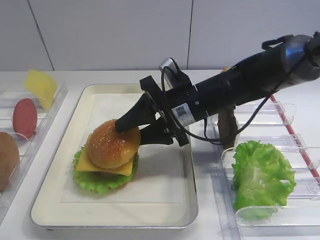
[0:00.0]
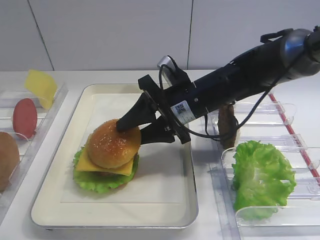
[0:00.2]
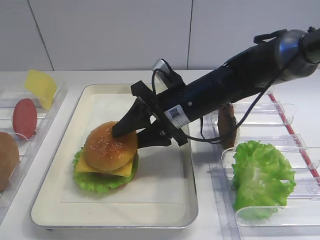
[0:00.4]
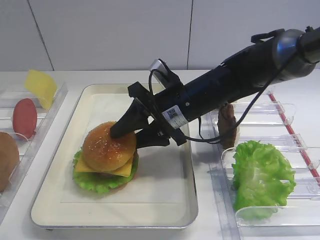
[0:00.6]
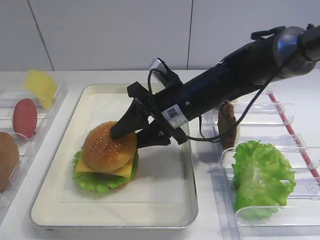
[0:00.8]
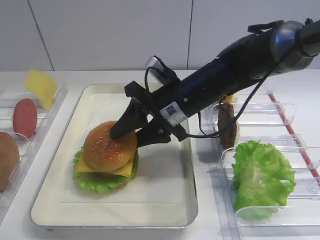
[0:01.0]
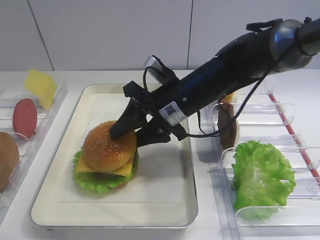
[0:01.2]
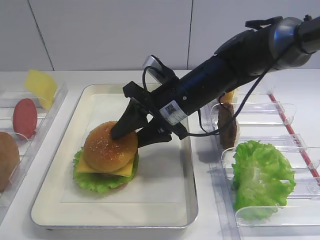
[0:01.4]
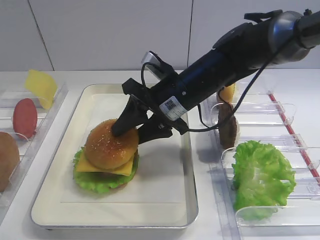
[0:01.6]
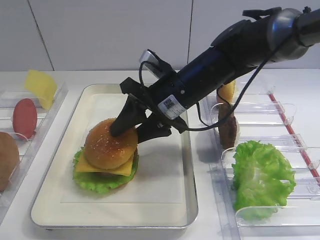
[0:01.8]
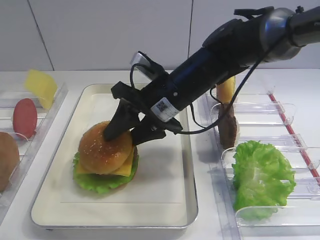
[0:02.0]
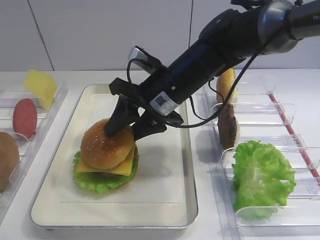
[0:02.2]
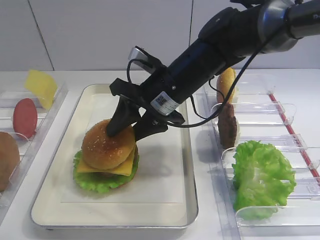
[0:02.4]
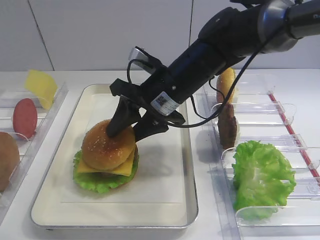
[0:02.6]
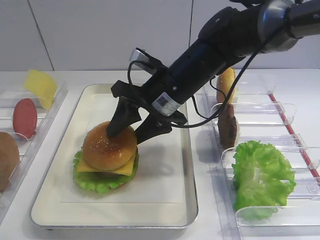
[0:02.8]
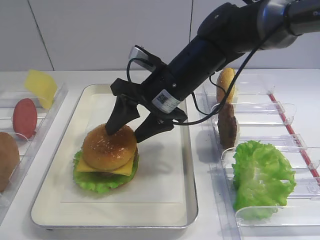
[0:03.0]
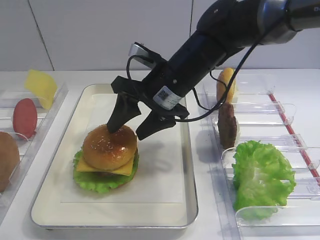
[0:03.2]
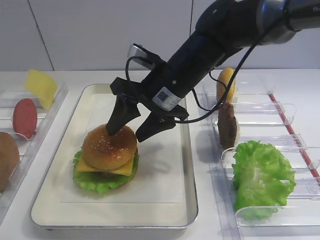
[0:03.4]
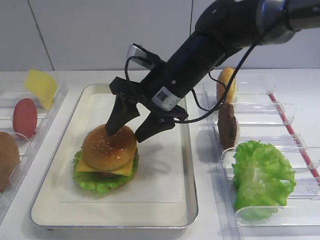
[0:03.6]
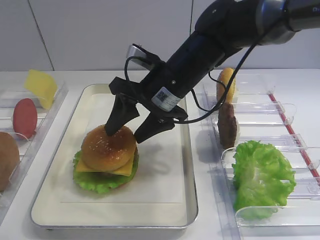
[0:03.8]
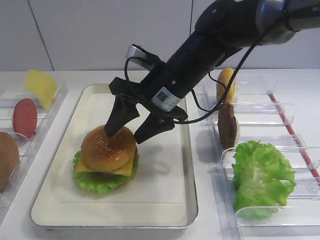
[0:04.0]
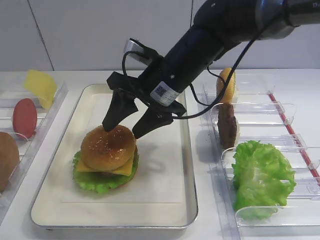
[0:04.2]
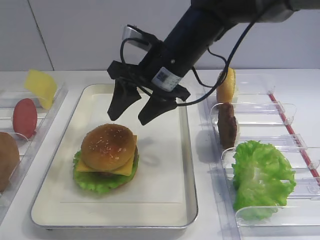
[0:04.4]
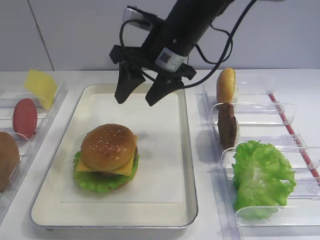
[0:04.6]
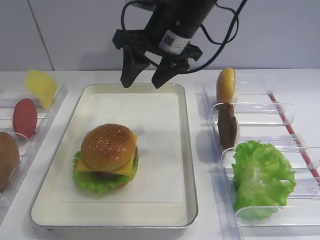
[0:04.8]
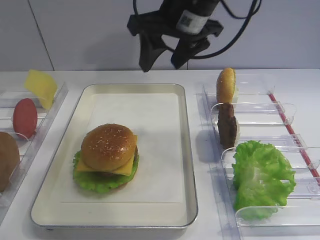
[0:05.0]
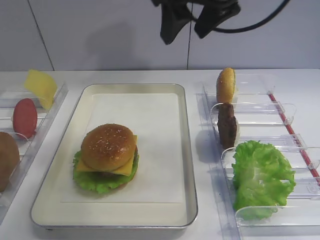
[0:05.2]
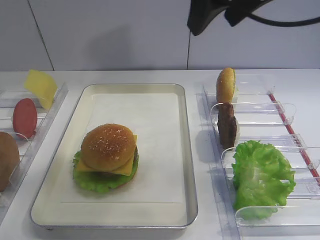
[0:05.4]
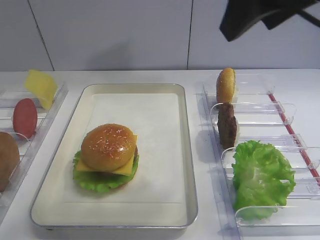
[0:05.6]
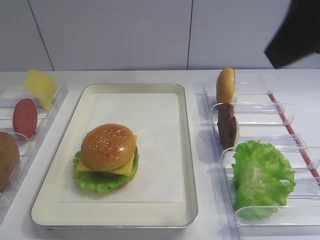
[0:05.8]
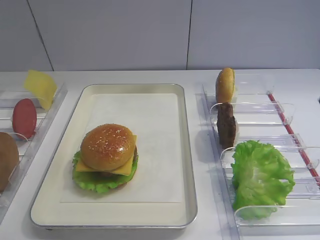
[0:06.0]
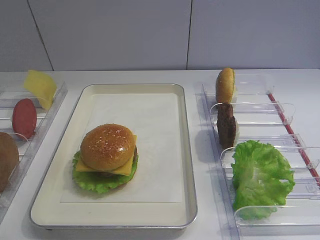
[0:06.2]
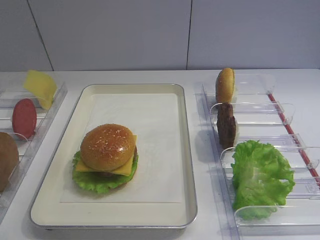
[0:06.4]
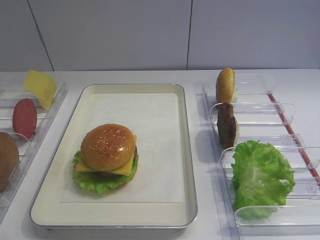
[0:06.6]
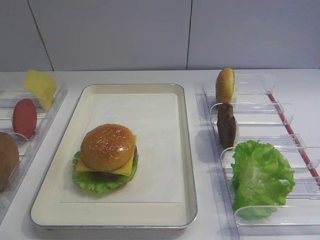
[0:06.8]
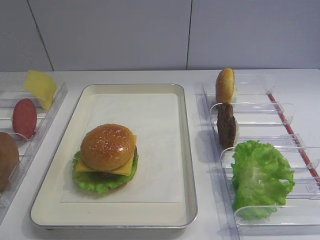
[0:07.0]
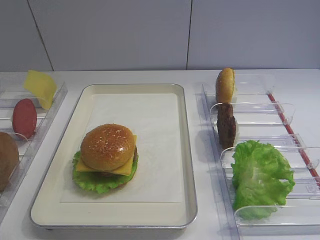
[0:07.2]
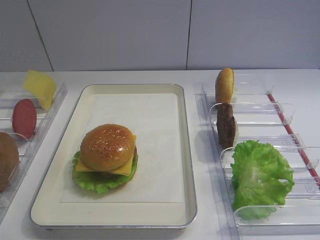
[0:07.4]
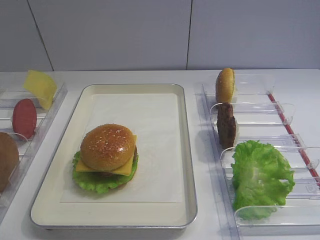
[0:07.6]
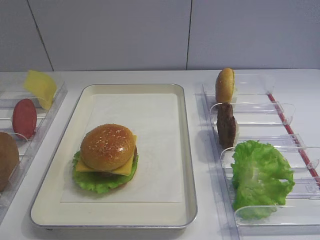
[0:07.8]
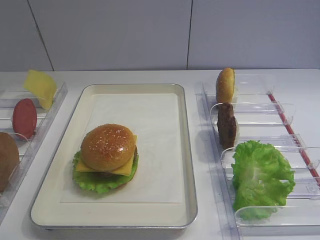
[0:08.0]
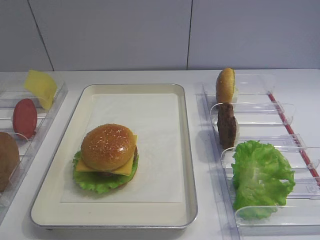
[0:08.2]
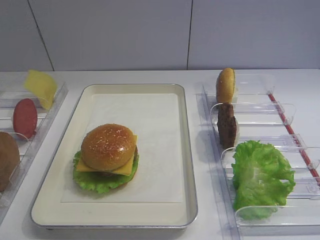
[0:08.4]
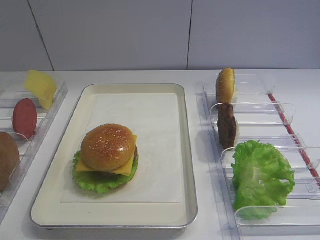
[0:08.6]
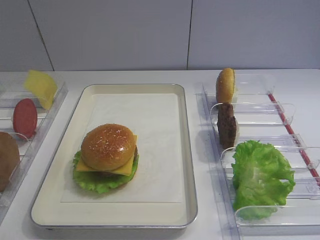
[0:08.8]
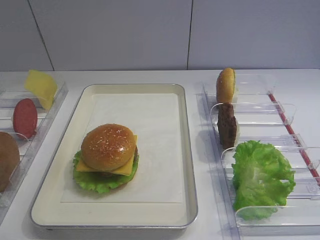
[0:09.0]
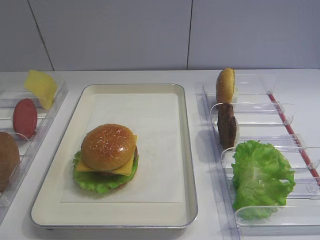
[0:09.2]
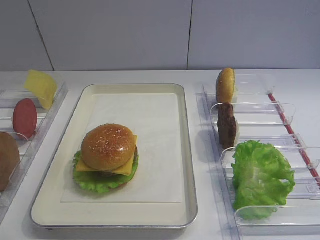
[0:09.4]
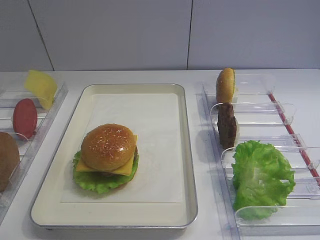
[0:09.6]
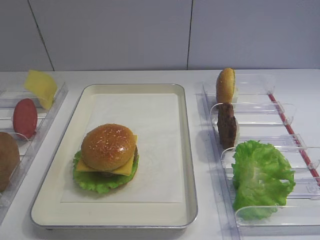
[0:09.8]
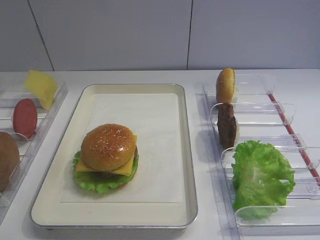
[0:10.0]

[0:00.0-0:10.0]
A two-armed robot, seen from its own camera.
Step, 0:00.0 to 0:04.4: Place the hamburger lid on the cheese slice with the right gripper.
0:00.0 to 0:01.4: The grippers move only a little.
0:01.4 to 0:04.2: The grippers stay close to where they were, moving slightly.
0:04.2 to 0:05.8: The right gripper goes some 30 cm upward, backward and to the right.
0:05.8 to 0:07.2: The right gripper heads backward, downward and to the right, covering about 25 cm.
0:08.6 to 0:10.0: Both grippers stay put.

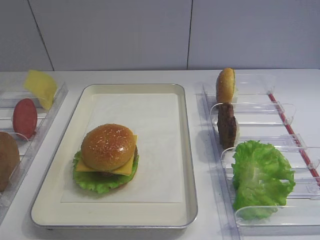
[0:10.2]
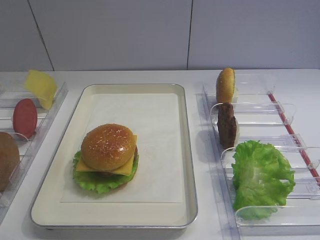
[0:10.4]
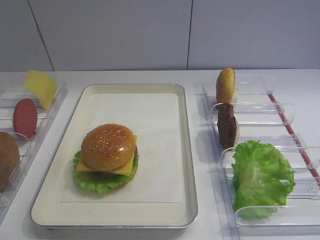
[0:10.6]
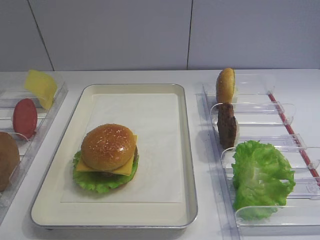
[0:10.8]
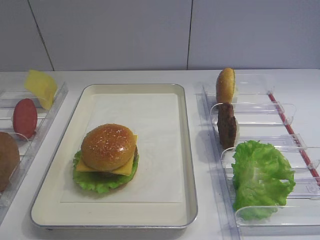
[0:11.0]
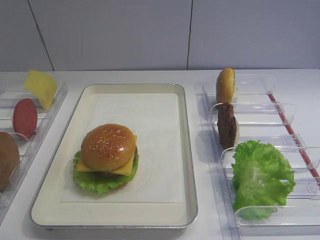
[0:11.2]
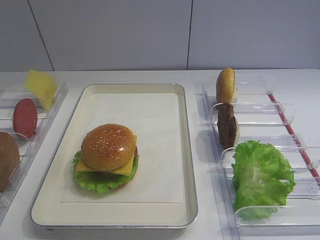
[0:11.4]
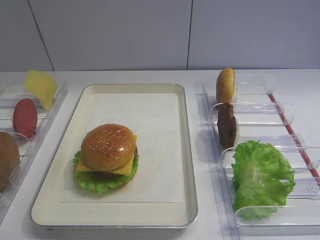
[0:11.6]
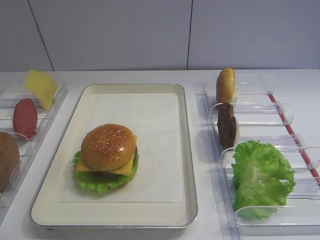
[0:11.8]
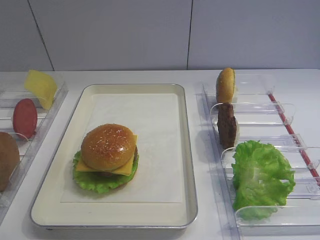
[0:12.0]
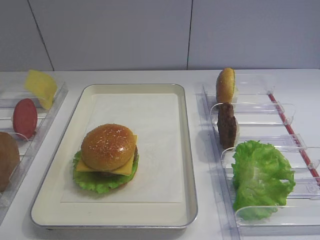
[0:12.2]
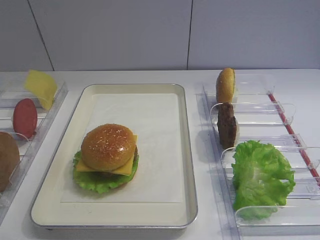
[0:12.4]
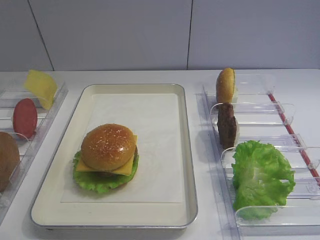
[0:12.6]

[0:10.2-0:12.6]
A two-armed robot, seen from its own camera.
0:10.2 to 0:12.6: Both grippers stay put.
